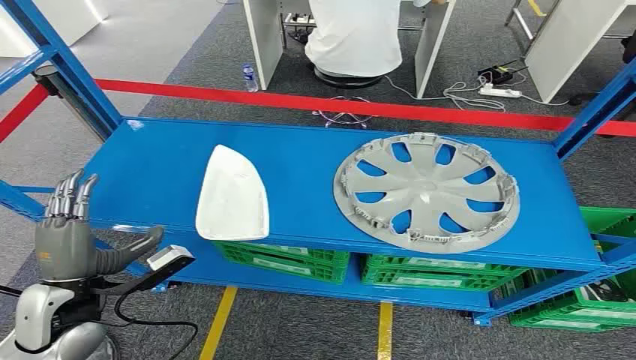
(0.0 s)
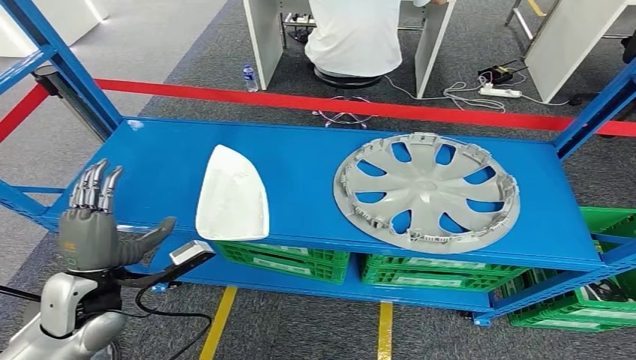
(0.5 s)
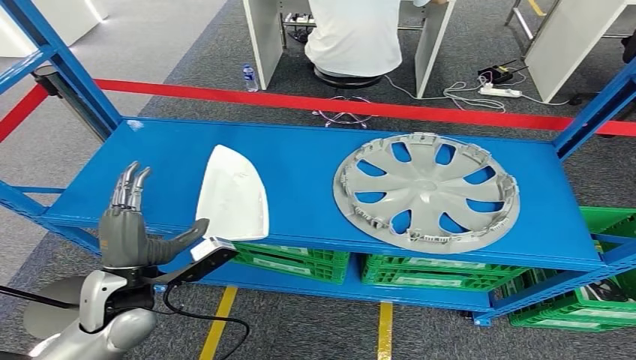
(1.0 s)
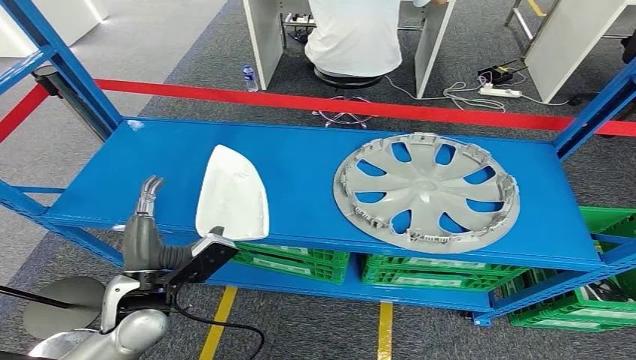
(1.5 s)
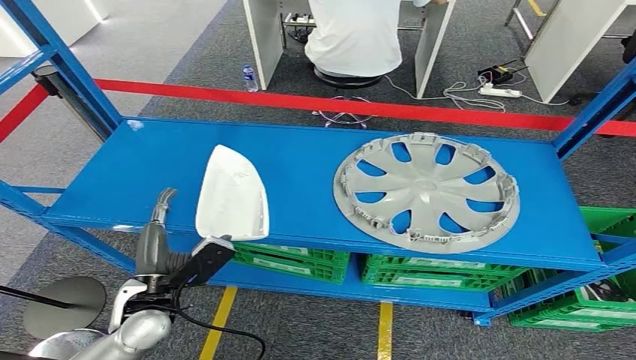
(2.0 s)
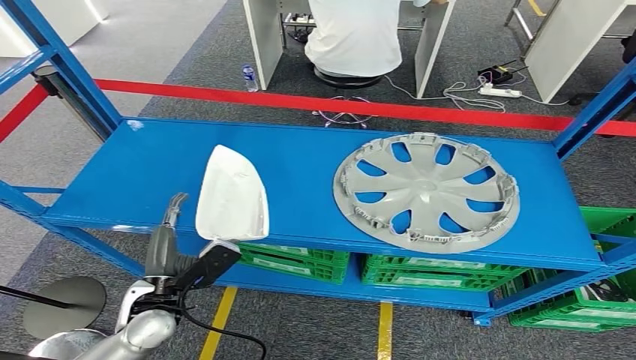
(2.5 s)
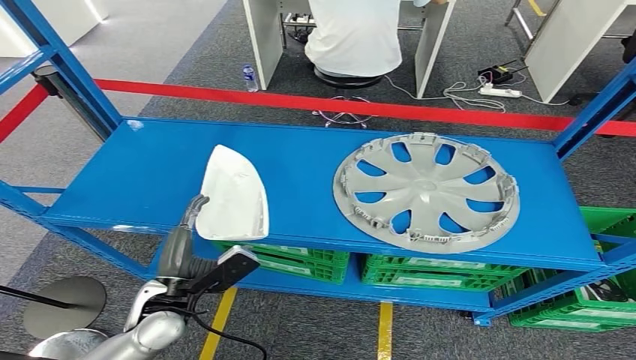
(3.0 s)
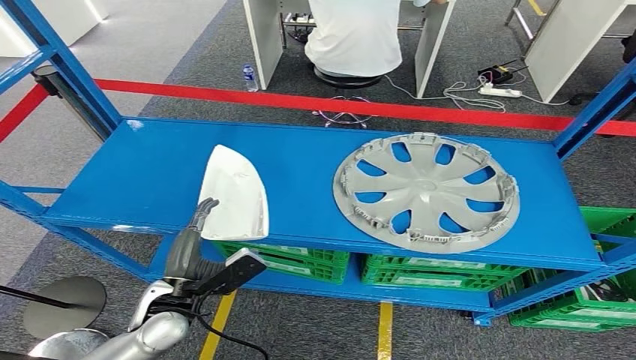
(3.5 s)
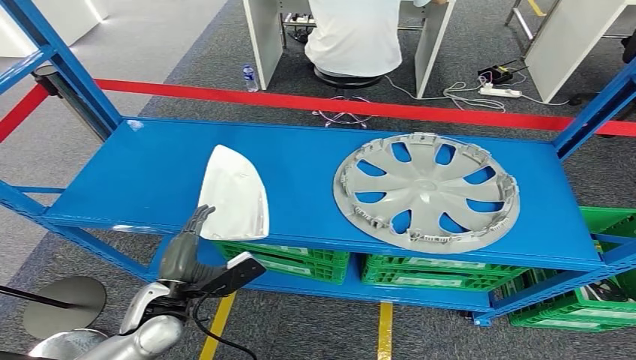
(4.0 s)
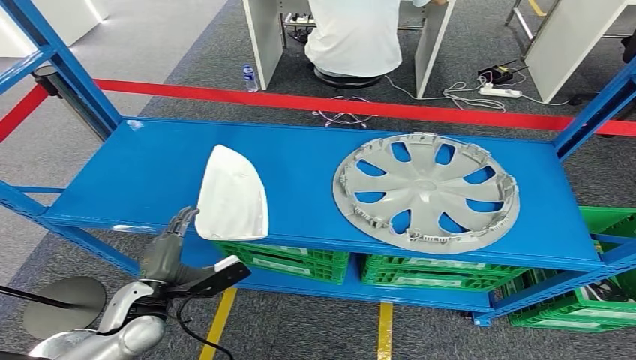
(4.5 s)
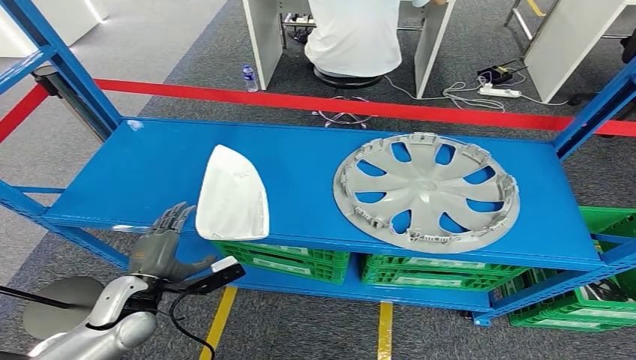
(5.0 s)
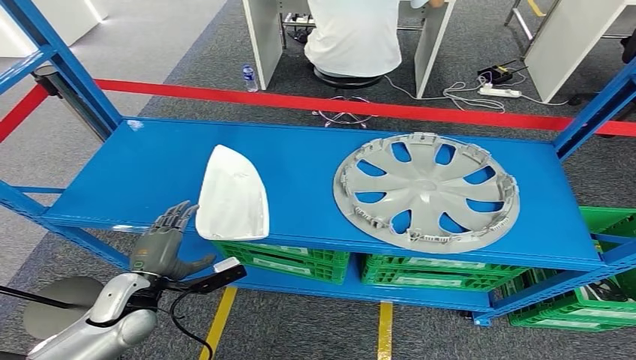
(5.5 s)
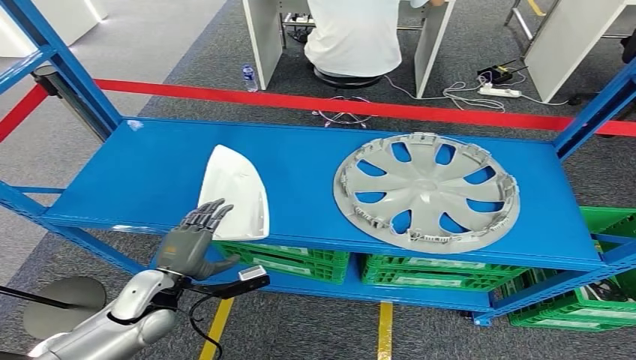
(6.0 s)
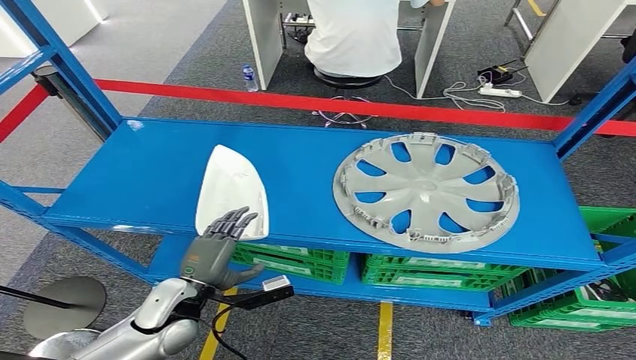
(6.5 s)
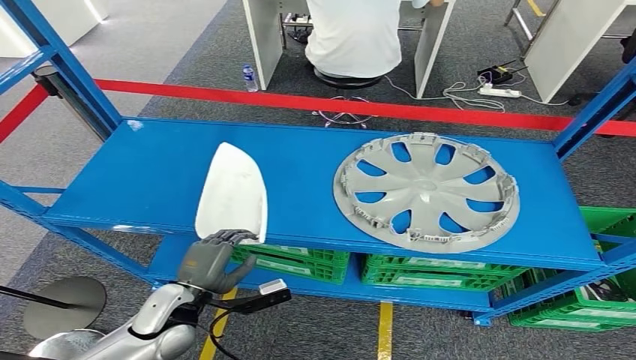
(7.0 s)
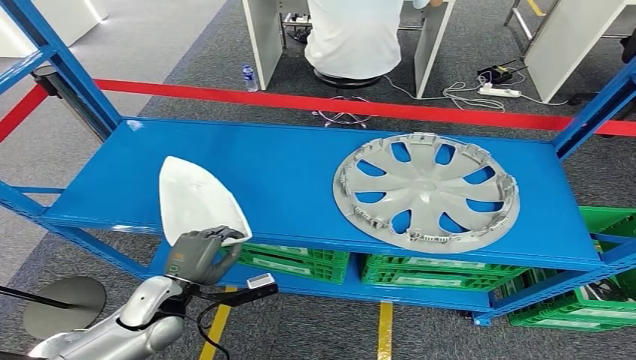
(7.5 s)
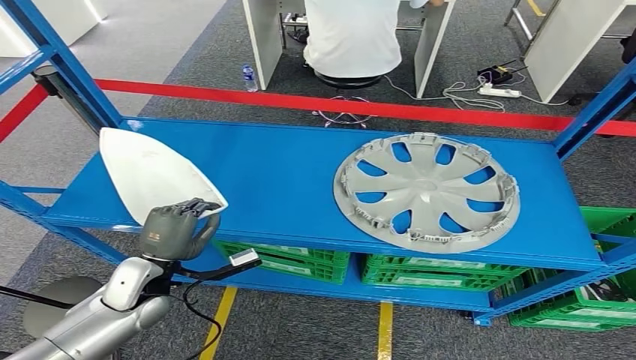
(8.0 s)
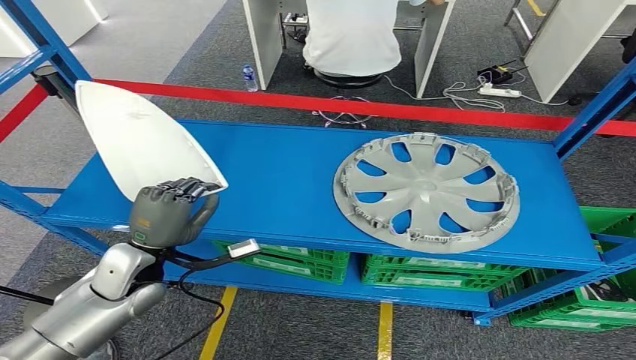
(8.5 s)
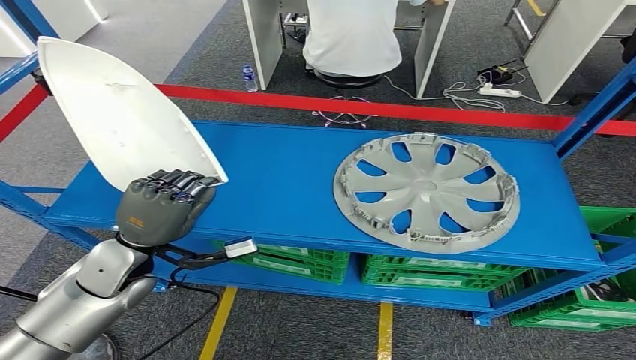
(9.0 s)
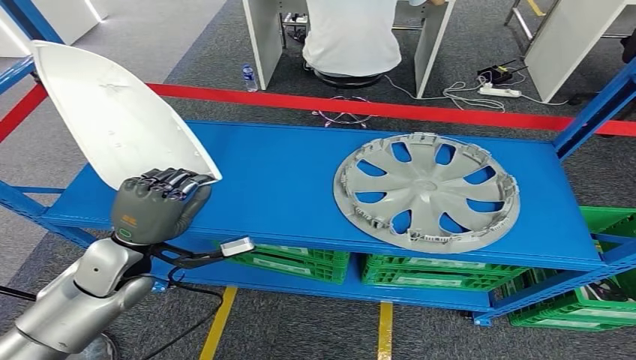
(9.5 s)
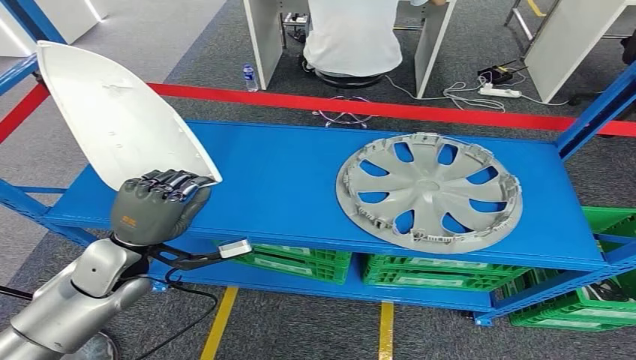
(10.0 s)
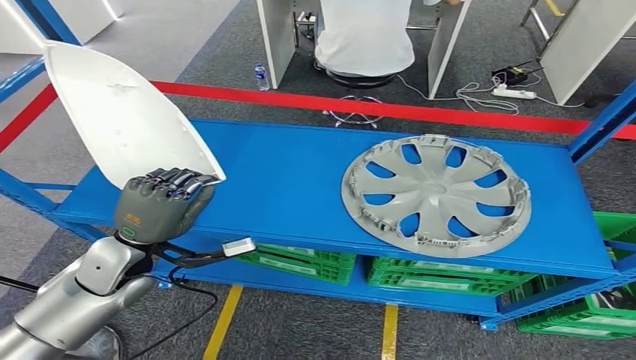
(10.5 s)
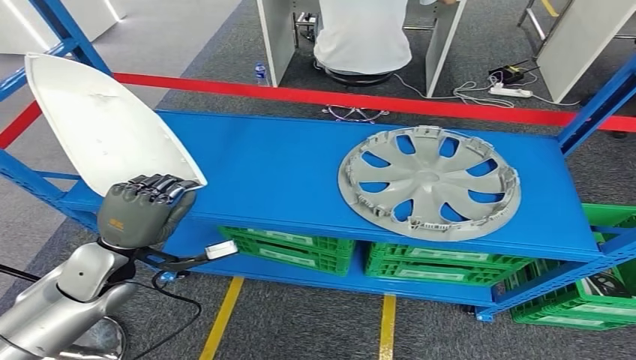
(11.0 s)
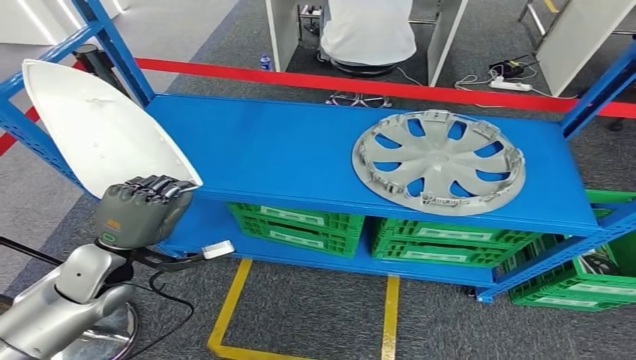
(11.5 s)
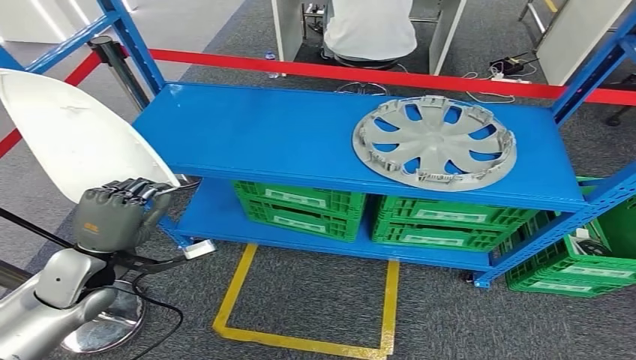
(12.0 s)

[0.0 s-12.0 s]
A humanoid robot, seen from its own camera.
Step, 0.0 to 10.0 s: Pick up the small component from the shelf.
2.0 to 4.0 s: There are only small adjustments of the hands.
6.0 to 8.0 s: The hands make only small movements.
8.0 to 10.0 s: The left hand moves upward, some 10 cm.

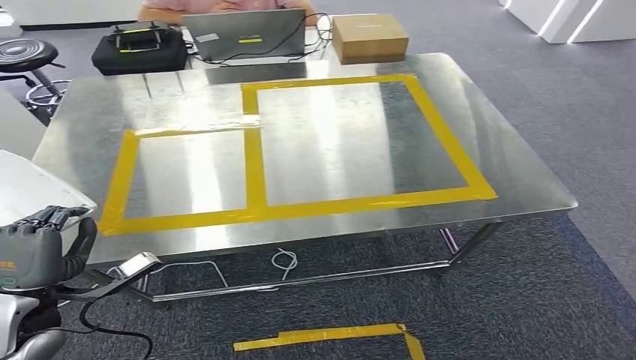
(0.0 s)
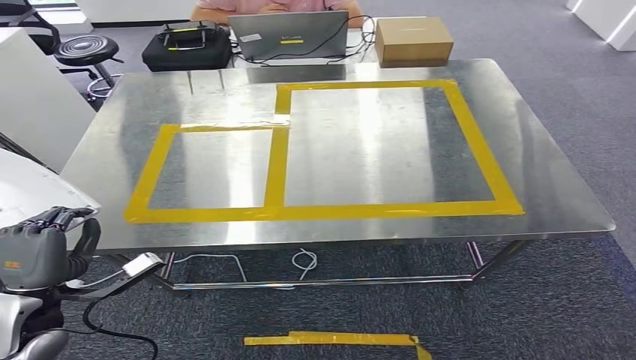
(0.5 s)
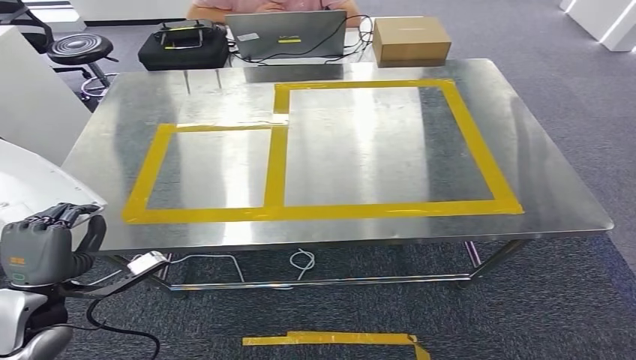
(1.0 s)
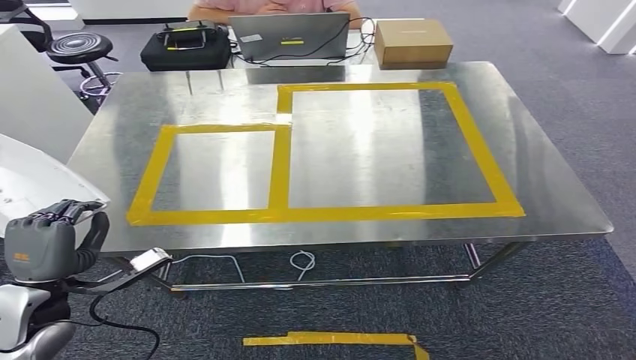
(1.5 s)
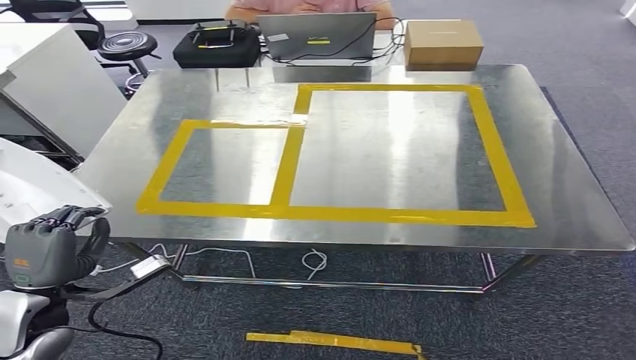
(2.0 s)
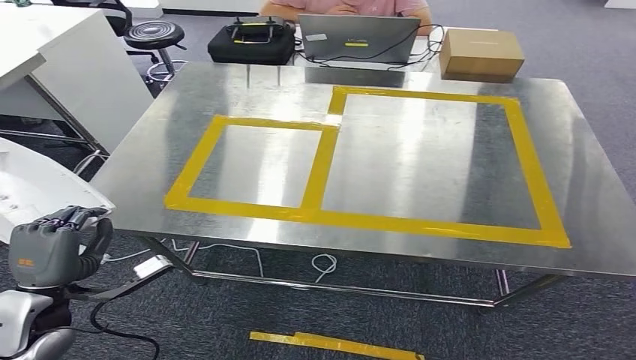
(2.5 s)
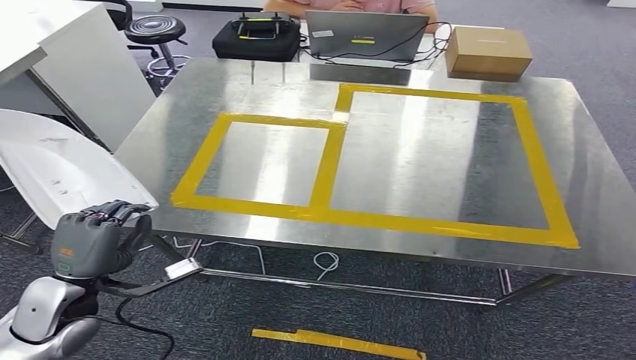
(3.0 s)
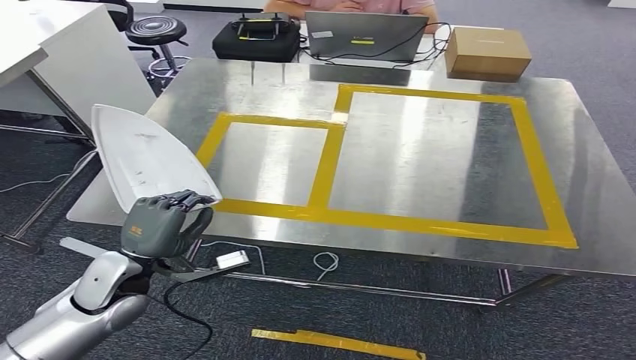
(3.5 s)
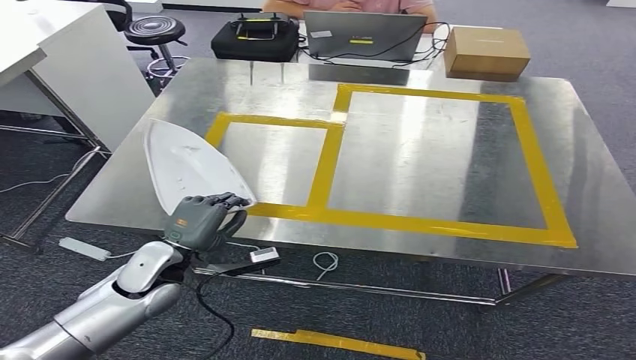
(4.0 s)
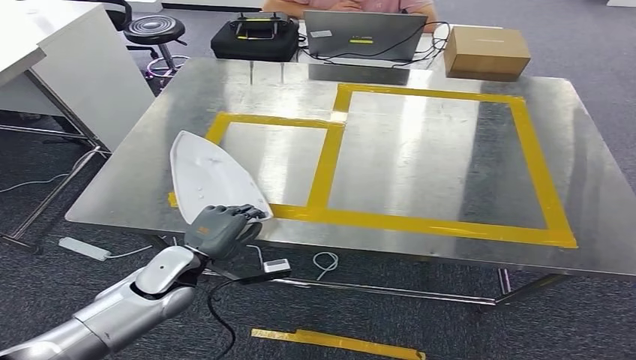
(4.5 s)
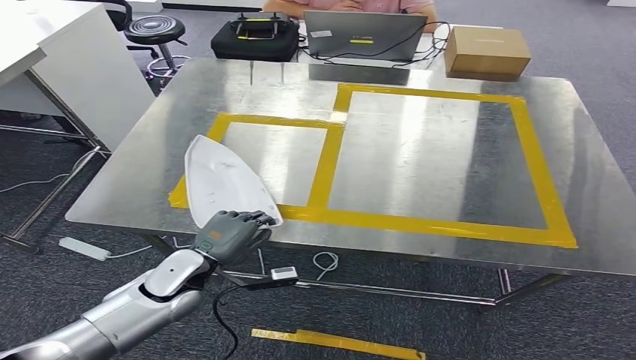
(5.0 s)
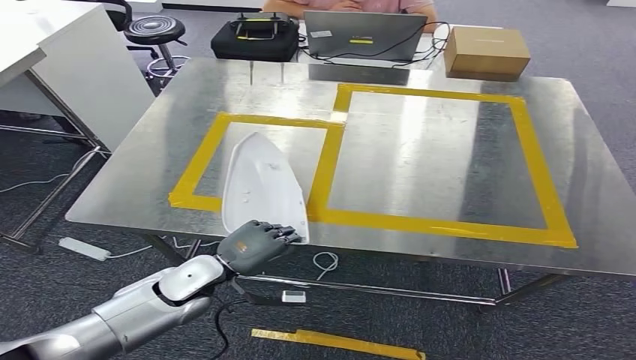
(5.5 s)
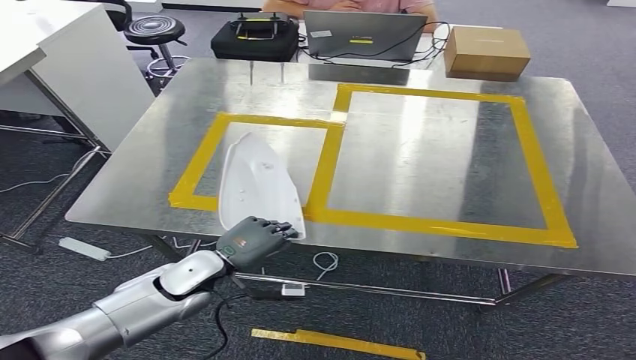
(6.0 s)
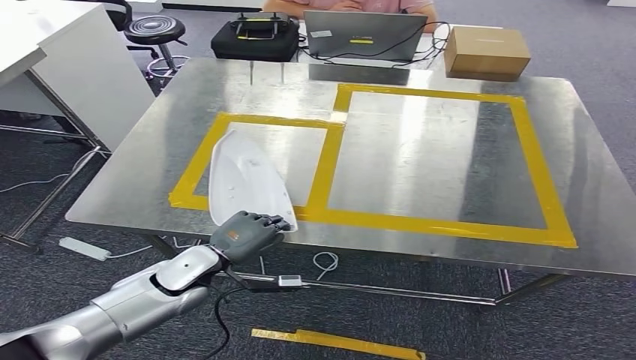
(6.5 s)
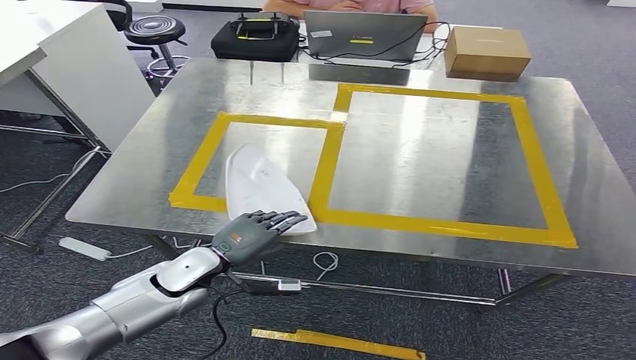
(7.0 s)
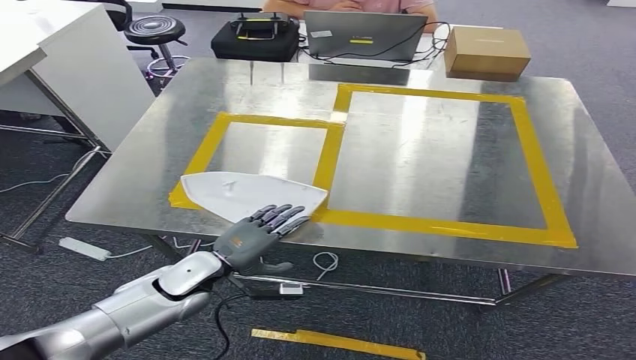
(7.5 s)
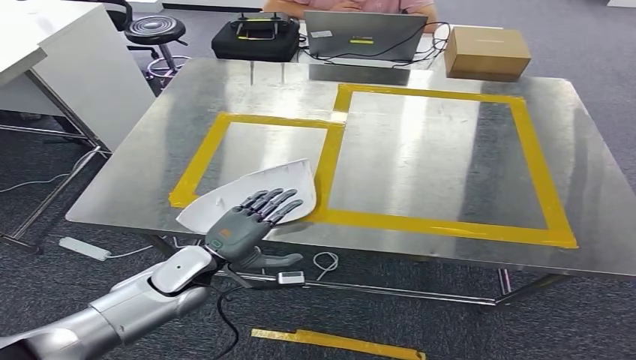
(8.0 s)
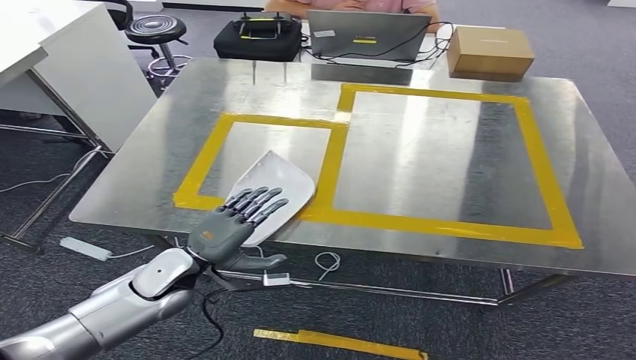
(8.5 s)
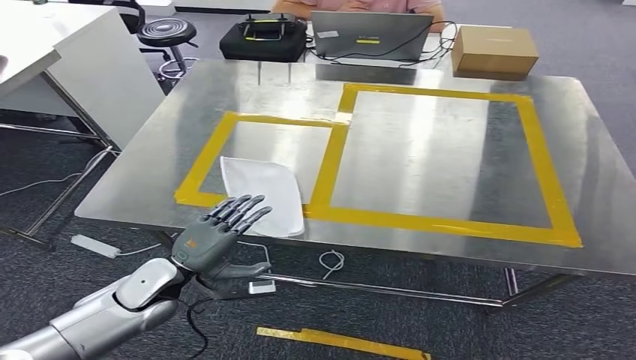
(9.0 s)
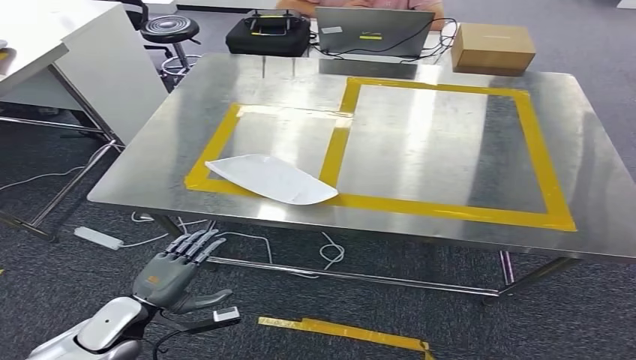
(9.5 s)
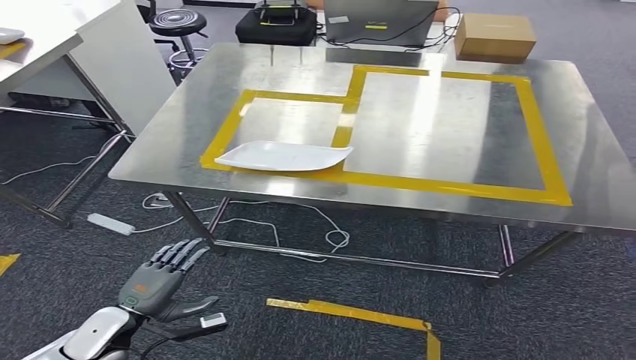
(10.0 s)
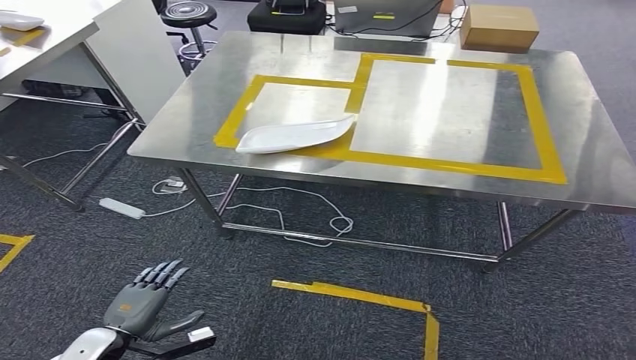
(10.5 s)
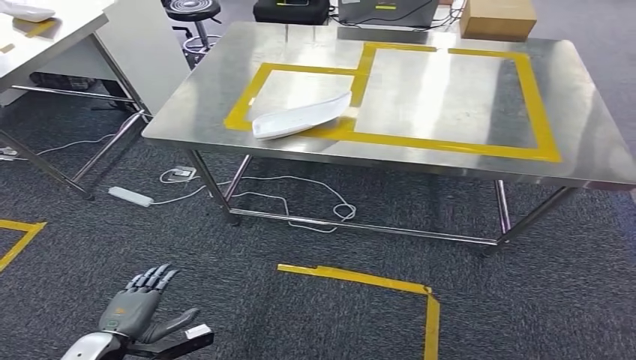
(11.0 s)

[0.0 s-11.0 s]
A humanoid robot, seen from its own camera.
3.5 to 5.5 s: The left hand travels to the right and downward by about 10 cm.
5.5 to 7.5 s: The hands stay close to where they were, moving slightly.
